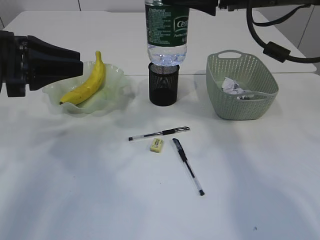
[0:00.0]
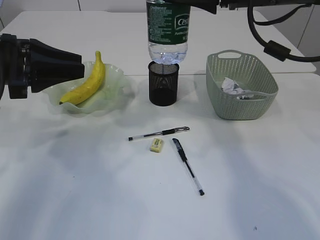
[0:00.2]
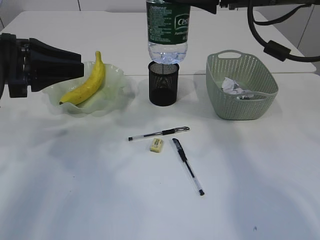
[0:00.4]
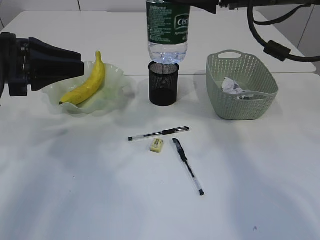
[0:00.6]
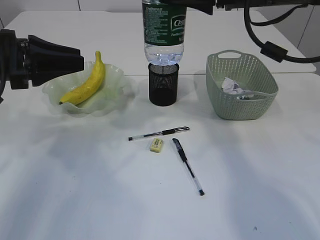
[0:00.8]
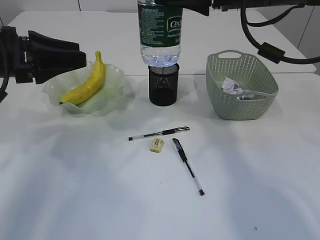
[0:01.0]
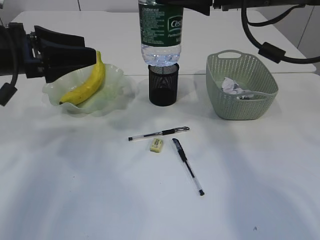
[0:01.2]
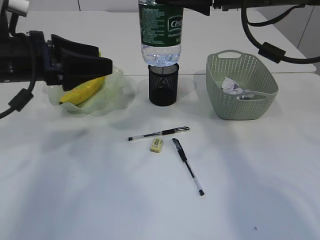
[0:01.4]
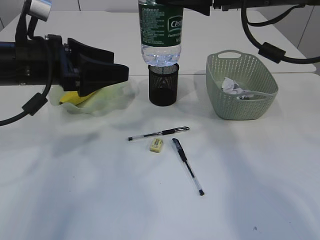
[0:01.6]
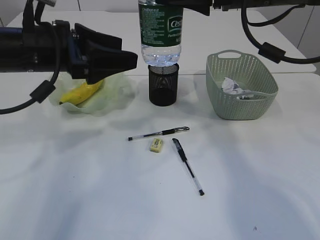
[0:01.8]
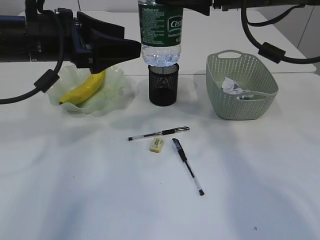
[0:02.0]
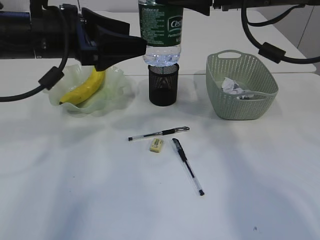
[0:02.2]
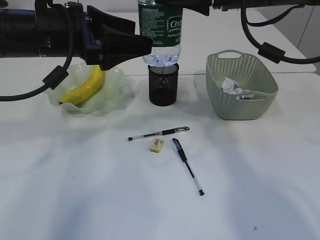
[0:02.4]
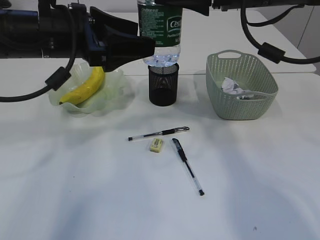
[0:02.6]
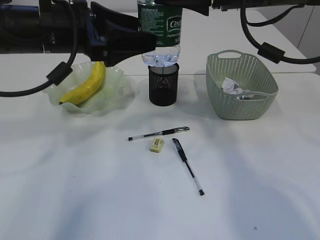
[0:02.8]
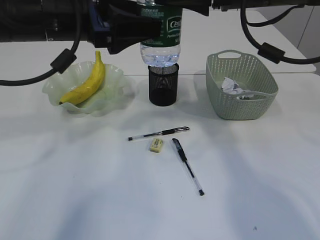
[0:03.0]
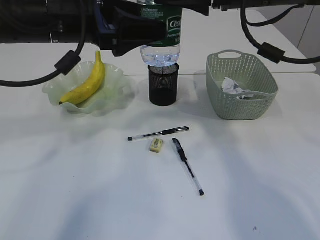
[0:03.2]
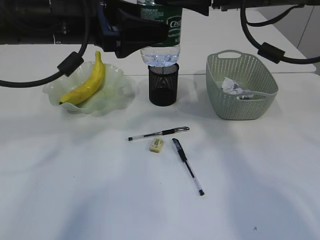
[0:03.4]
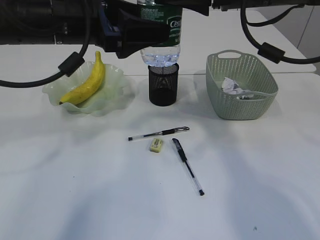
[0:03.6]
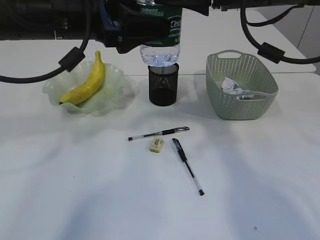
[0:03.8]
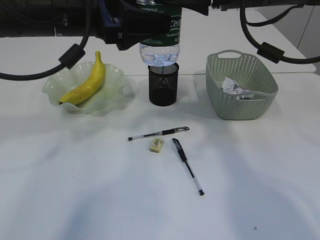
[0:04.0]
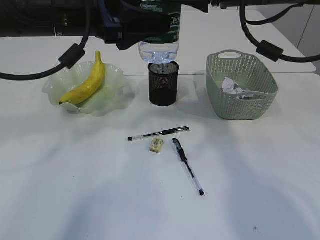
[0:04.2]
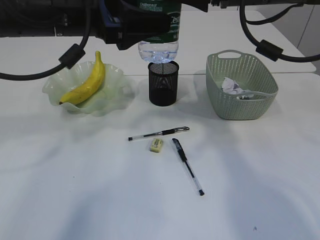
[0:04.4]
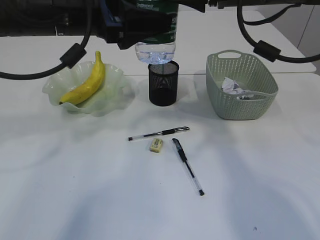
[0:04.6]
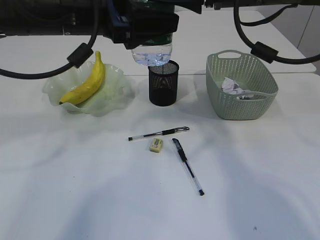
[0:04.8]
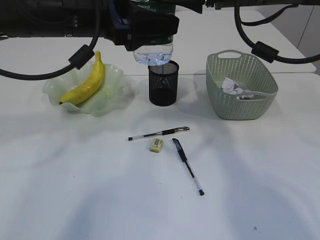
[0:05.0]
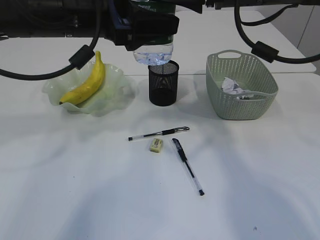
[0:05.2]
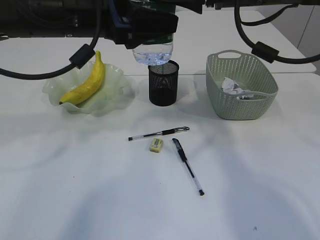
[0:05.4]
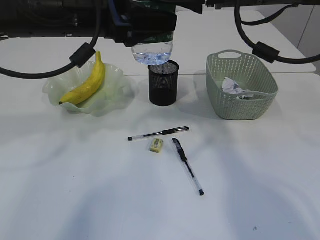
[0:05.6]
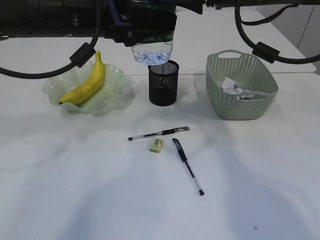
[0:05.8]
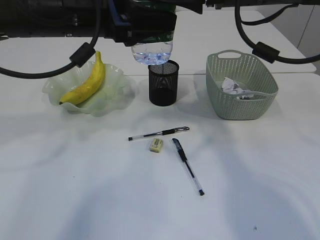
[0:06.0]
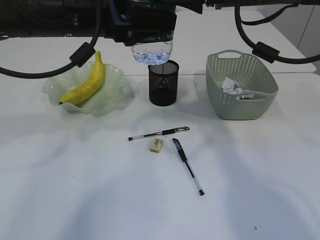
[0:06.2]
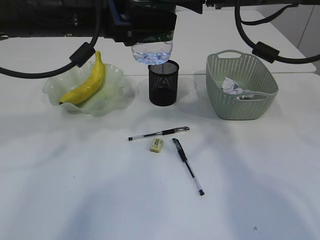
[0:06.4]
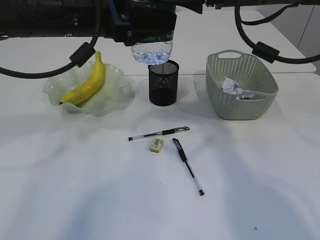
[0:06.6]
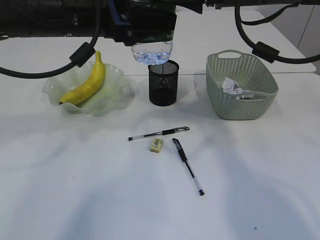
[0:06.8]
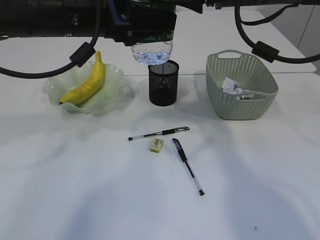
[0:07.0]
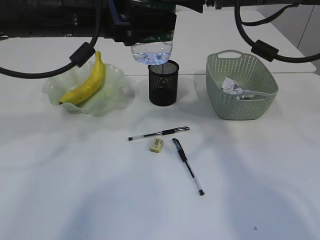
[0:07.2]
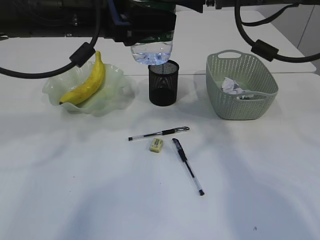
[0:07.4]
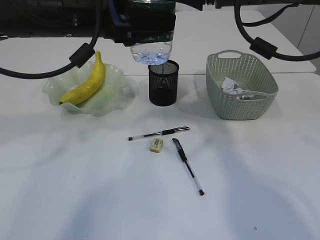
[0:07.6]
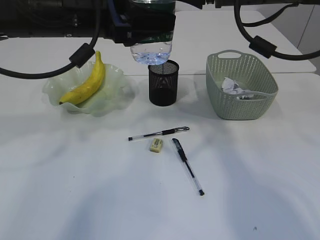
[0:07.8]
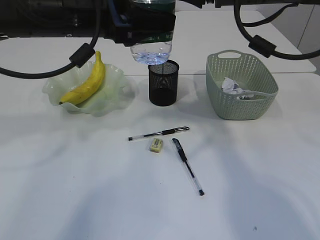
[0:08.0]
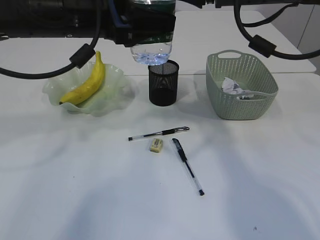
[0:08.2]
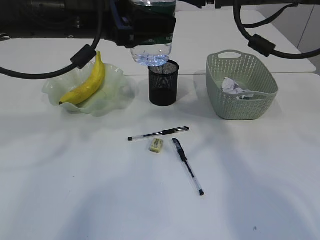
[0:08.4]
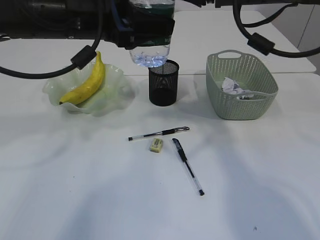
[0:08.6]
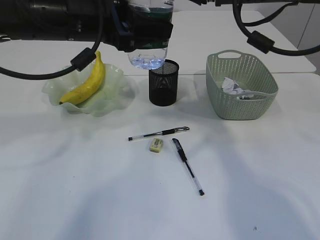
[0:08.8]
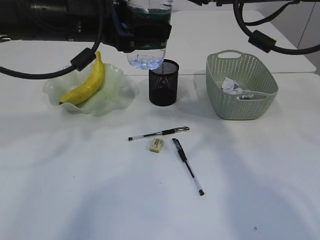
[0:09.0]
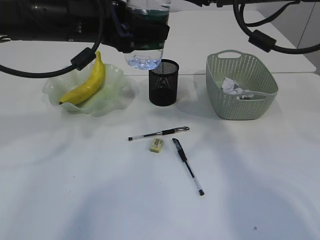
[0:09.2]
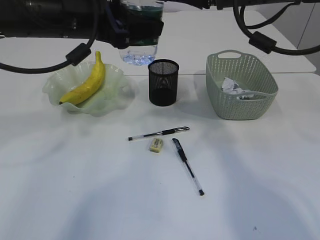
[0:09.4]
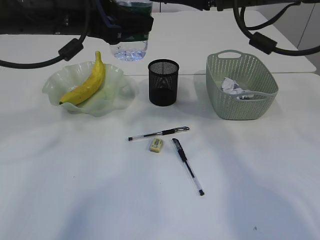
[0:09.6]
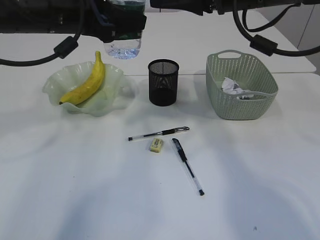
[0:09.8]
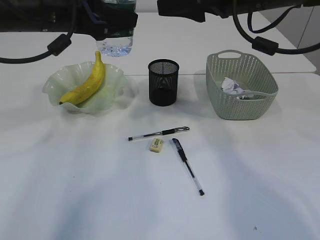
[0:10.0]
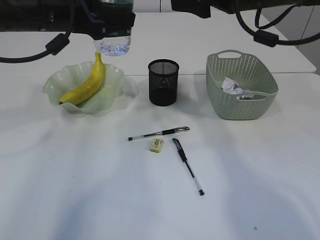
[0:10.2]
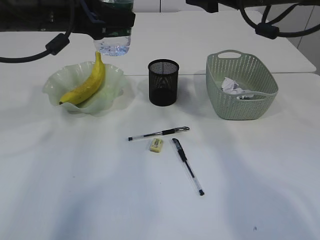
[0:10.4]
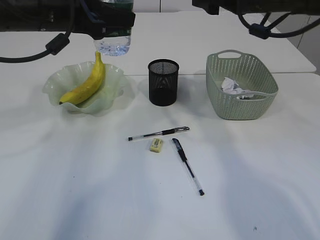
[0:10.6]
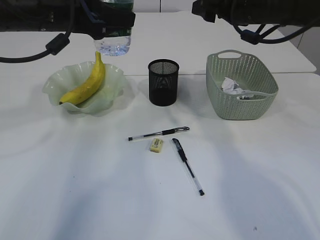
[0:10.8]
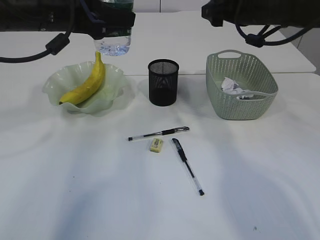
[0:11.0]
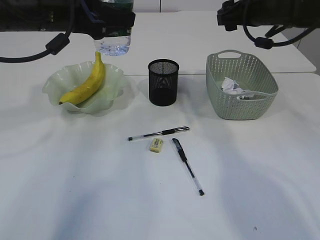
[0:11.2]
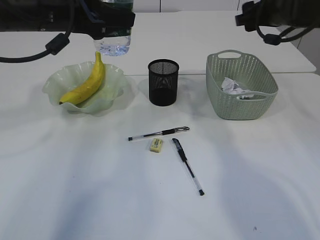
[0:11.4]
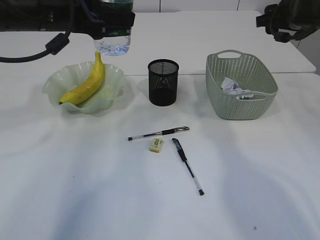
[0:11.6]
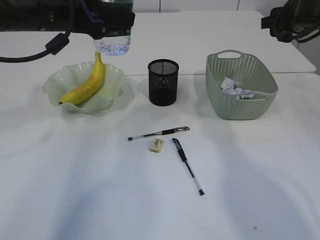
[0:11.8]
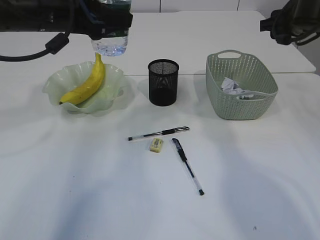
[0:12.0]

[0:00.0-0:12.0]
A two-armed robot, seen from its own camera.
Step, 0:00.0 to 0:10.0: transfer the bottle to the left arm.
0:00.0 to 0:01.6: The left gripper travels to the right by approximately 5 cm, and opens.
0:01.6 to 0:03.0: The left gripper travels upward by roughly 5 cm.
0:03.0 to 0:04.4: Neither gripper changes place.
0:04.4 to 0:06.0: Neither gripper changes place.
0:06.0 to 0:09.0: The grippers stay close to where they were, moving slightly.
0:09.0 to 0:10.4: The left gripper moves approximately 5 cm; the right gripper ends up about 5 cm from where it was.
0:10.4 to 0:12.0: The right gripper heads to the right and downward, covering approximately 10 cm.

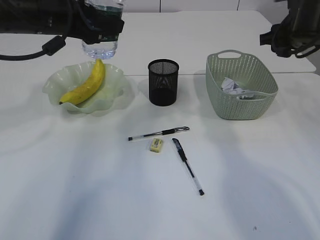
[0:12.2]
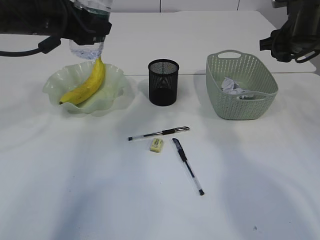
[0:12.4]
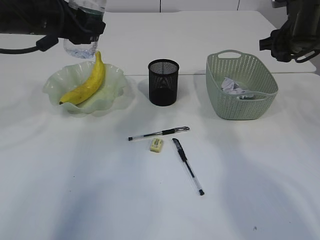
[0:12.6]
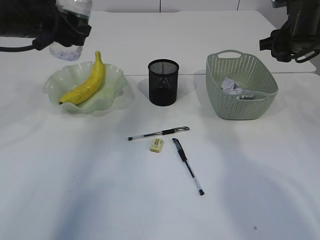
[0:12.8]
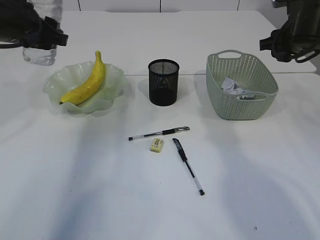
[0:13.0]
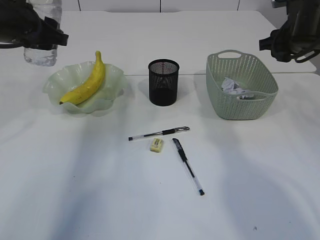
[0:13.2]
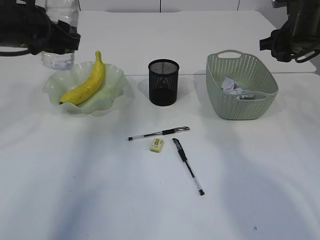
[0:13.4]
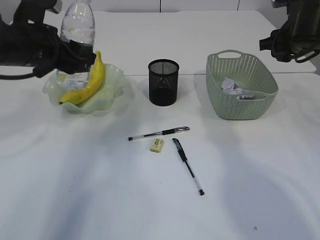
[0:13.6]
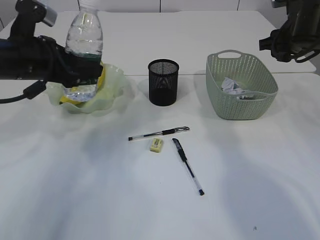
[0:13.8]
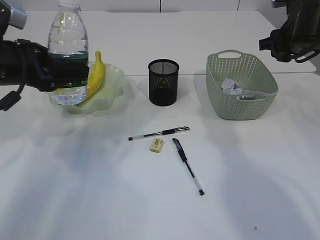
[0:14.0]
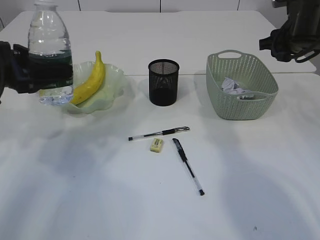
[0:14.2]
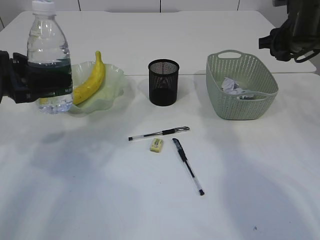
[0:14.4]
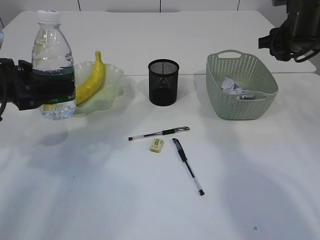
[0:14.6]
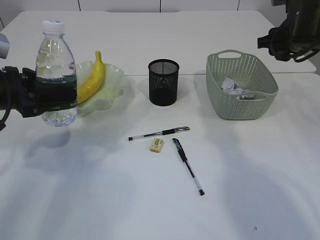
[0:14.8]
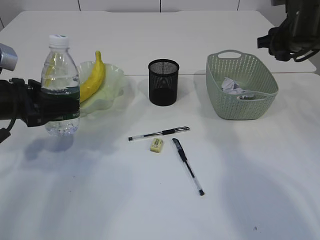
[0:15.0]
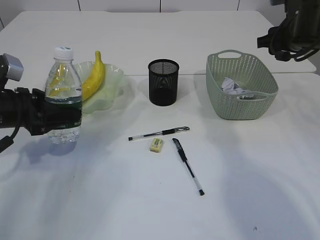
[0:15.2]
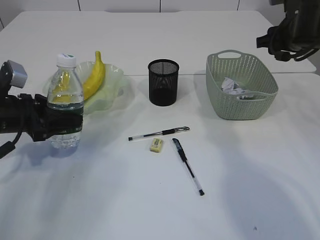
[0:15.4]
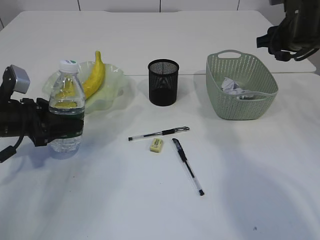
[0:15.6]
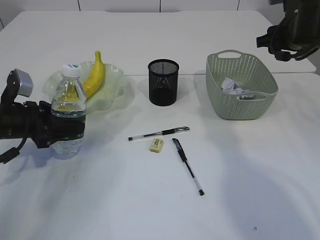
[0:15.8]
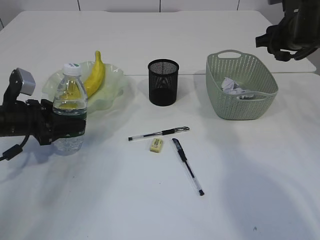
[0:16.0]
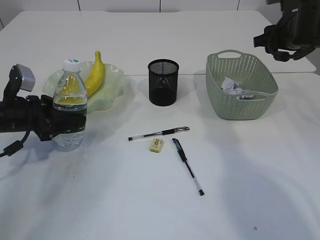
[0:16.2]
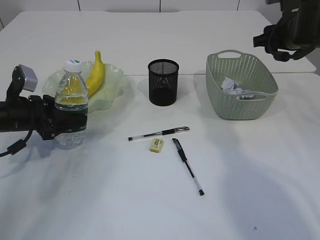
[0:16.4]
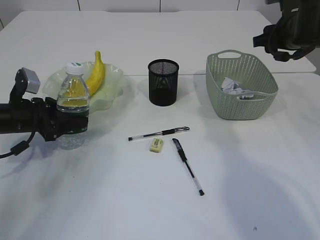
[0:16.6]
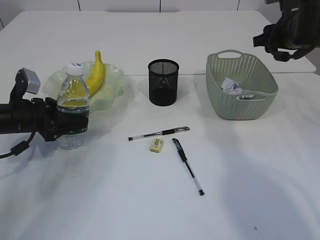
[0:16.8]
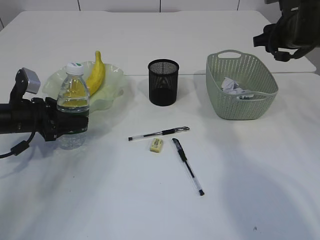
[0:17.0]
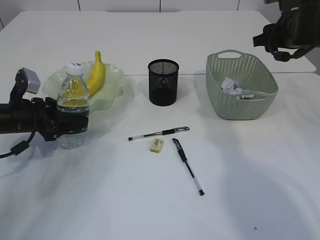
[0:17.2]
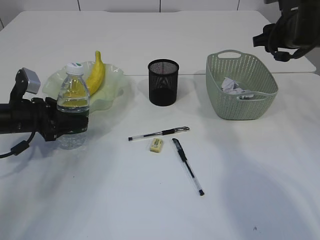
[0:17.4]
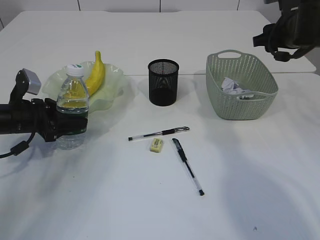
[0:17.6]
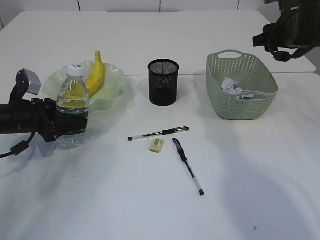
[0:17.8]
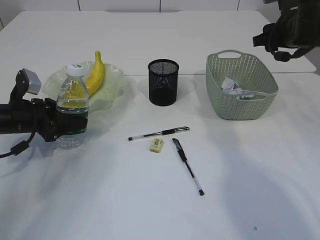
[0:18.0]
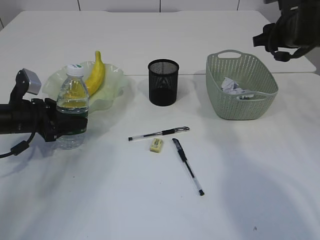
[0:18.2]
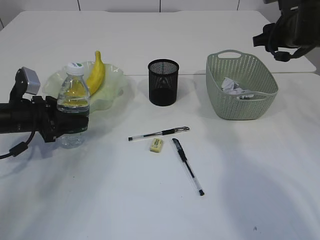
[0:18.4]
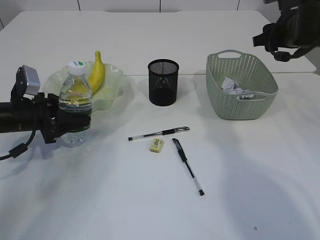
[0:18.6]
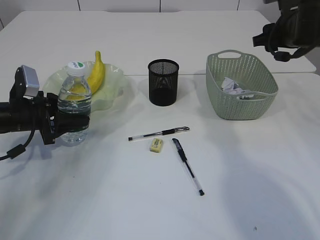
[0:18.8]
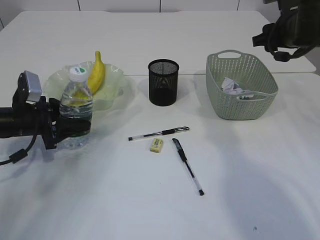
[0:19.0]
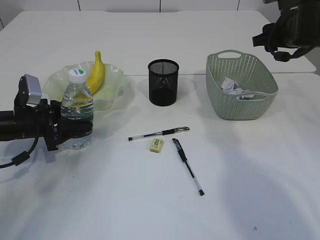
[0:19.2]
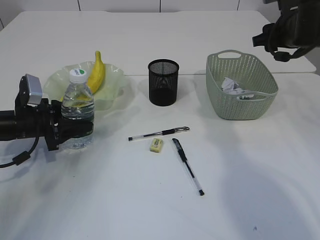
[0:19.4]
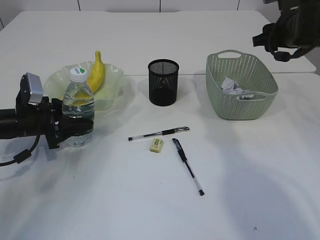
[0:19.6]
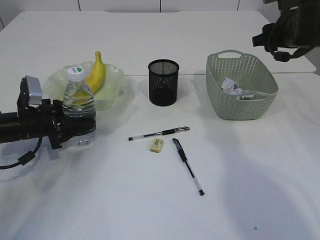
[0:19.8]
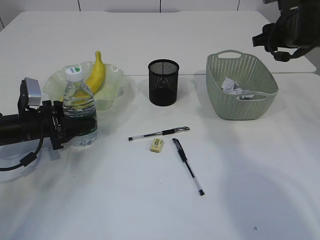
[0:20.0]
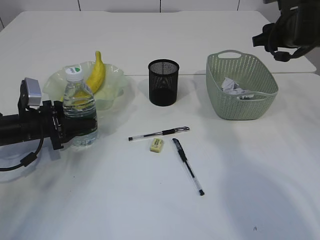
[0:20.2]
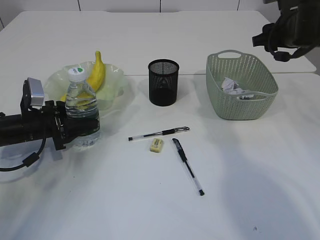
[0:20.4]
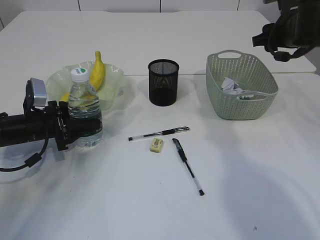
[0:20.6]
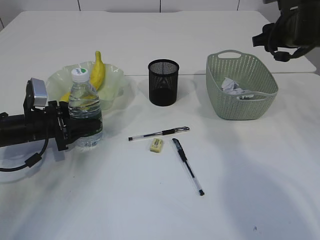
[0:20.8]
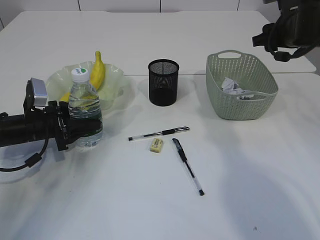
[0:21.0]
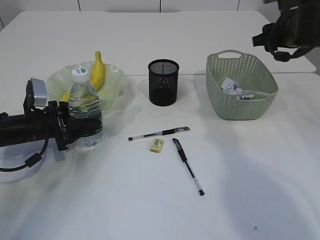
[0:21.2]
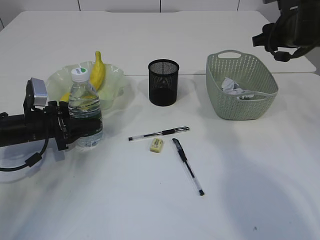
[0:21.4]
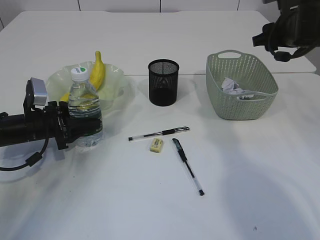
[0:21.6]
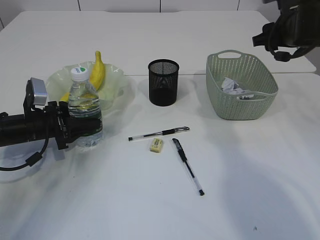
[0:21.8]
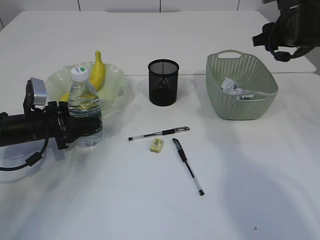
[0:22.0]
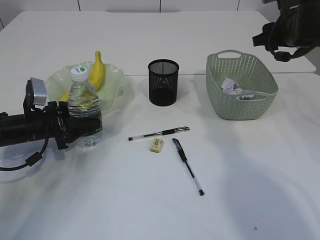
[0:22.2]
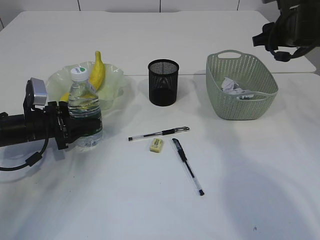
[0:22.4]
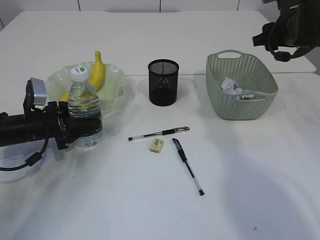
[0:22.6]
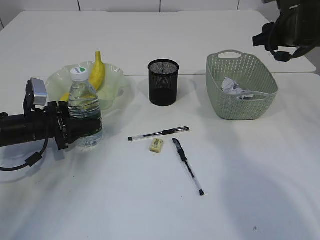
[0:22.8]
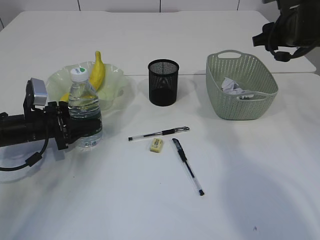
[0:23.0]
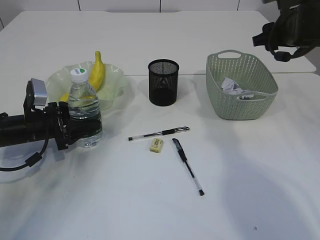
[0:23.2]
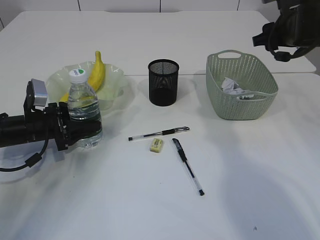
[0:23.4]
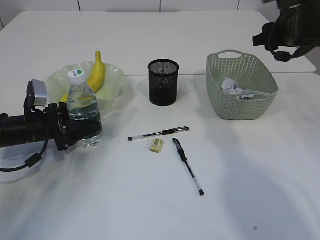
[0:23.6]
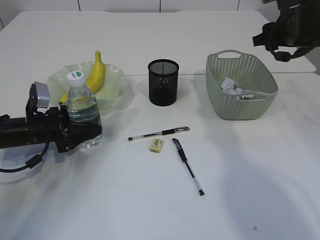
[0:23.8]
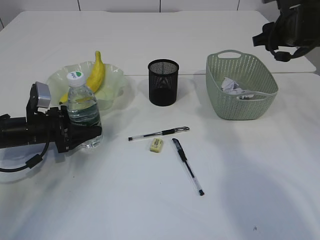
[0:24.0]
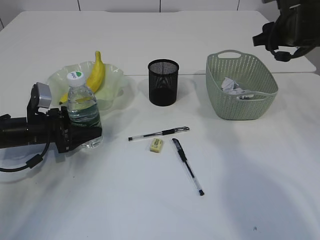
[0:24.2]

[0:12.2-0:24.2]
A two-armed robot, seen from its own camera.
0:12.2 to 0:13.8: The left gripper goes some 5 cm downward.
0:13.8 to 0:15.2: The left gripper moves downward and to the left, roughly 10 cm.
0:15.2 to 0:16.6: The left gripper goes some 5 cm downward.
0:16.6 to 0:18.2: The two grippers keep their place.
0:18.2 to 0:21.2: The grippers move only a little.
0:21.2 to 0:22.6: Neither gripper changes place.
0:22.6 to 0:24.2: The grippers make only small movements.
